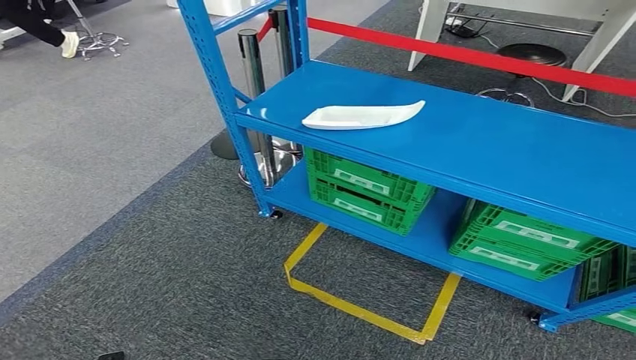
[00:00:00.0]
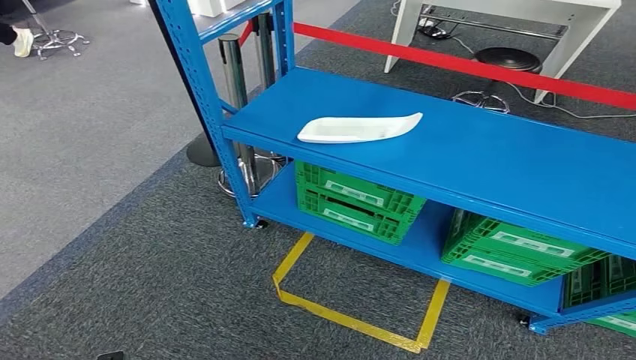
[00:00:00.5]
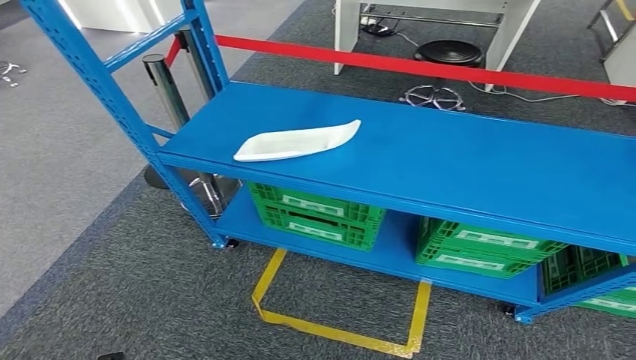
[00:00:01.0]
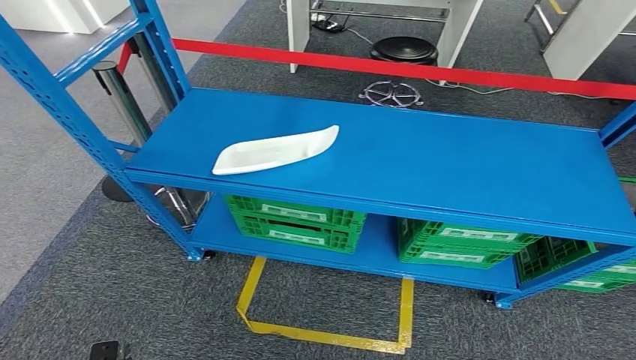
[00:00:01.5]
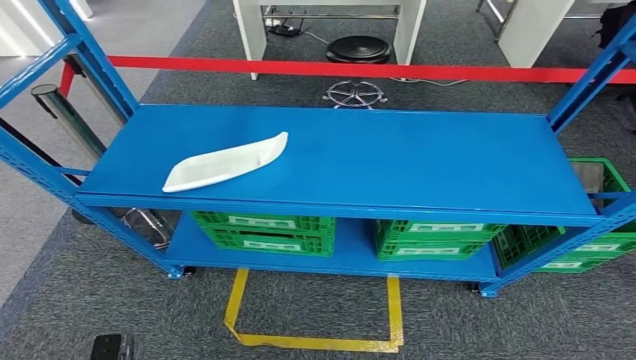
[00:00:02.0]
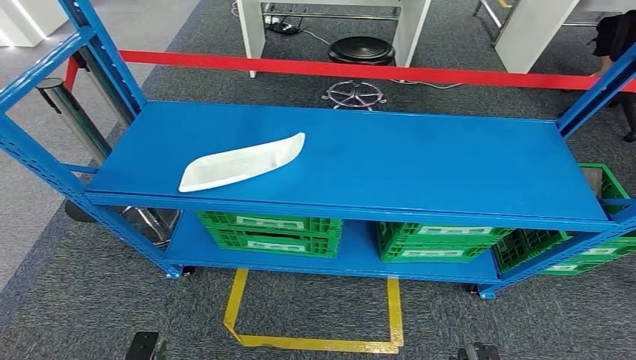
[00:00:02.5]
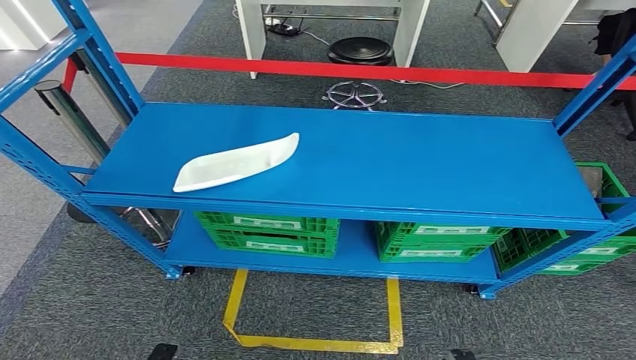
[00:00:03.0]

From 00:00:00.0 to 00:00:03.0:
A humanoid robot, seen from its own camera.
Step, from 00:00:00.0 to 00:00:03.0: Move to the initial position at the workbench.

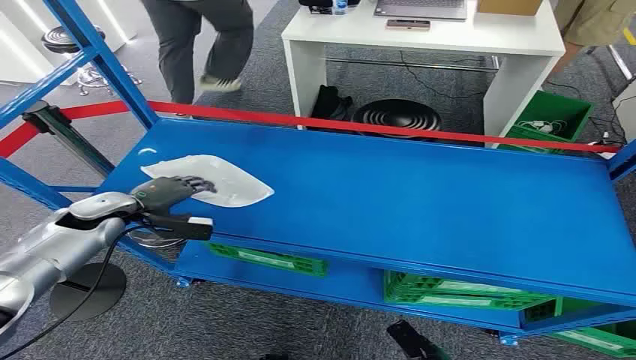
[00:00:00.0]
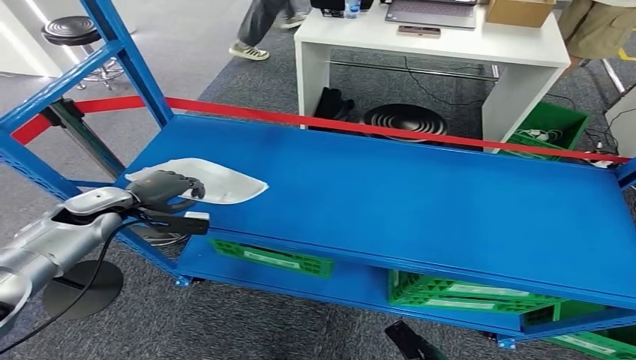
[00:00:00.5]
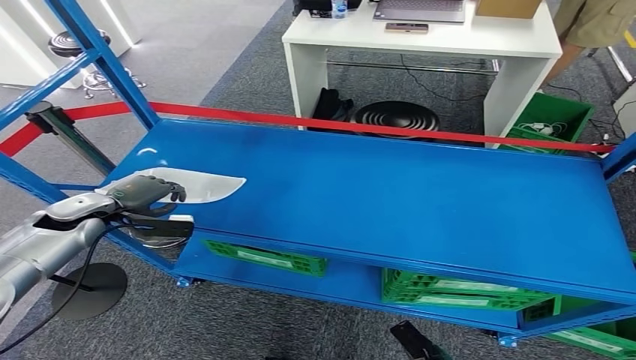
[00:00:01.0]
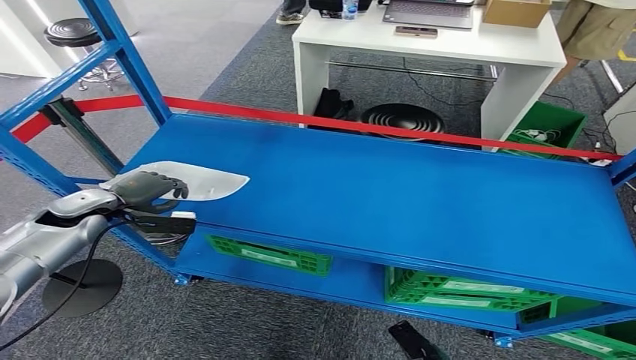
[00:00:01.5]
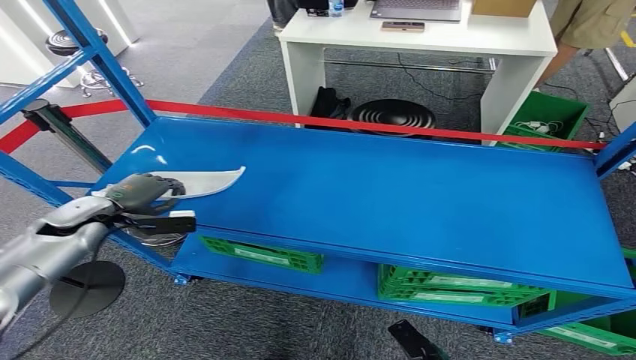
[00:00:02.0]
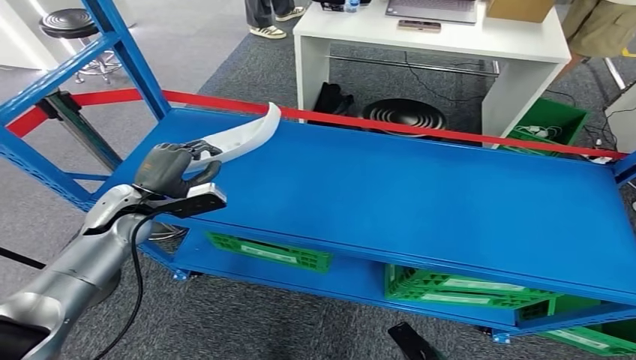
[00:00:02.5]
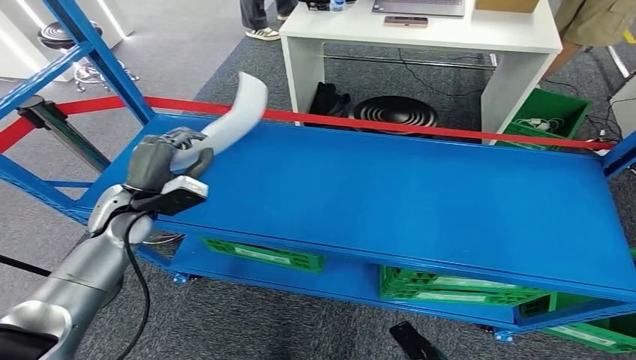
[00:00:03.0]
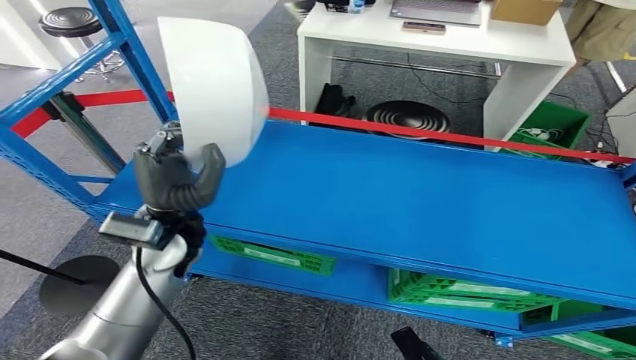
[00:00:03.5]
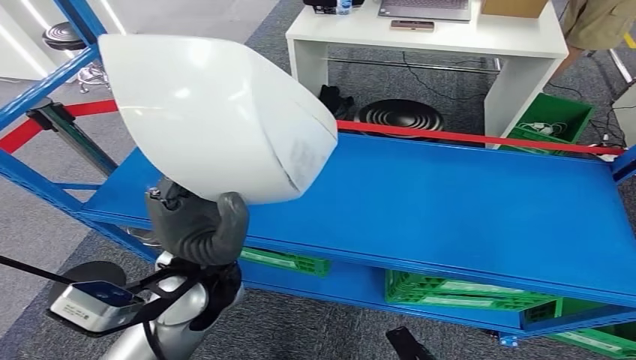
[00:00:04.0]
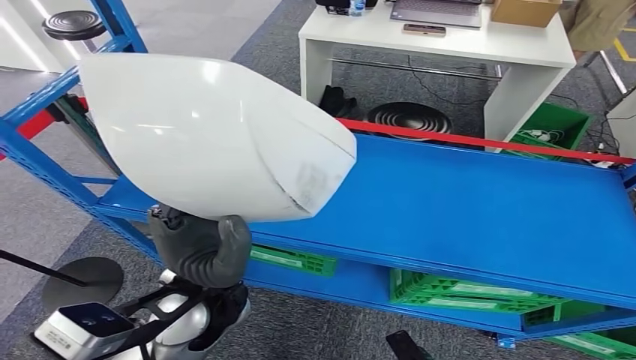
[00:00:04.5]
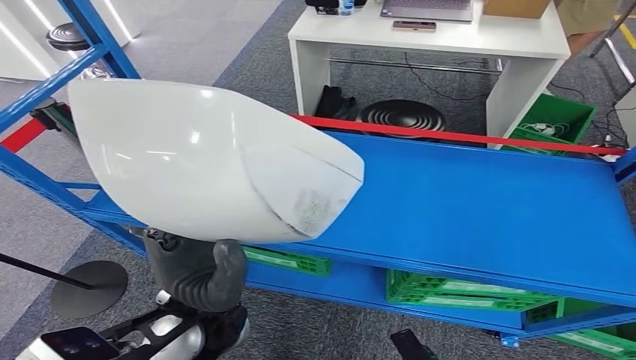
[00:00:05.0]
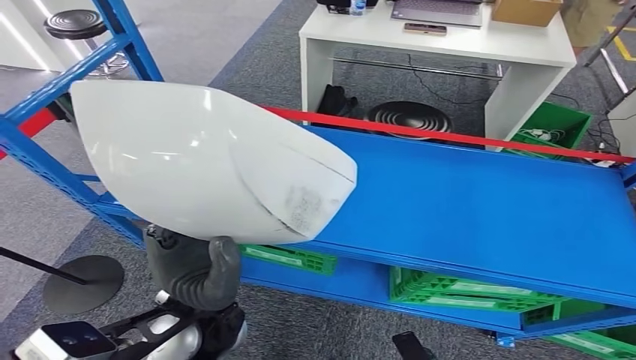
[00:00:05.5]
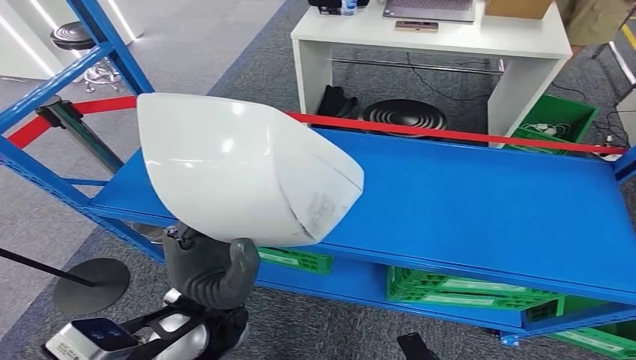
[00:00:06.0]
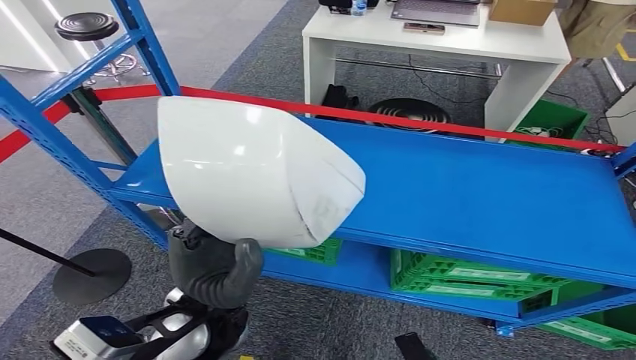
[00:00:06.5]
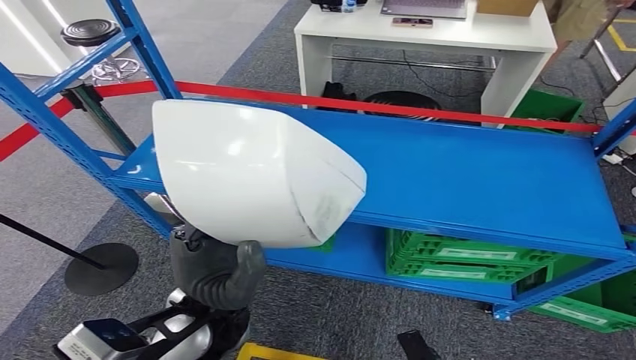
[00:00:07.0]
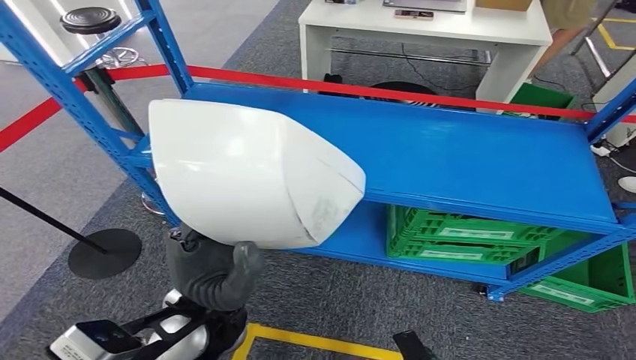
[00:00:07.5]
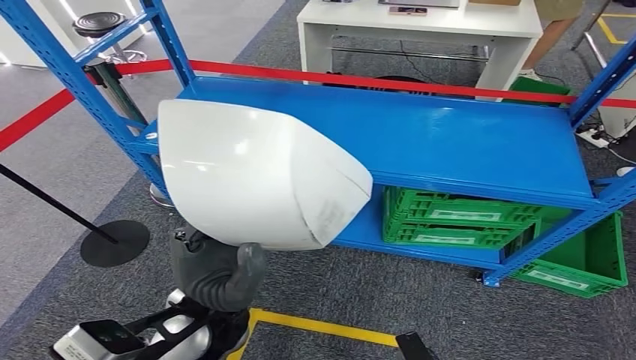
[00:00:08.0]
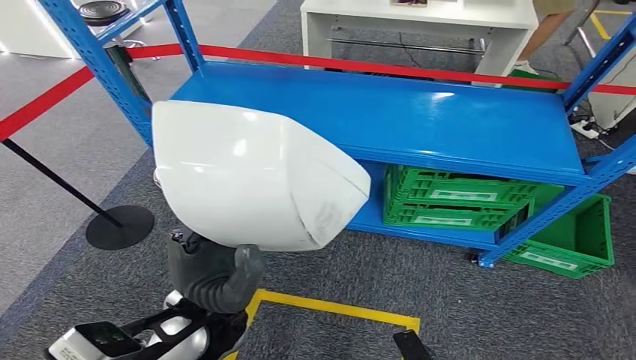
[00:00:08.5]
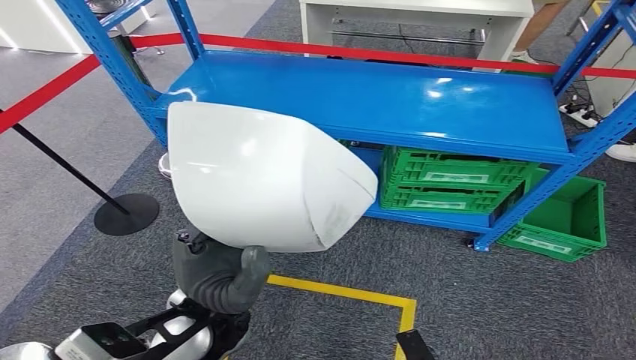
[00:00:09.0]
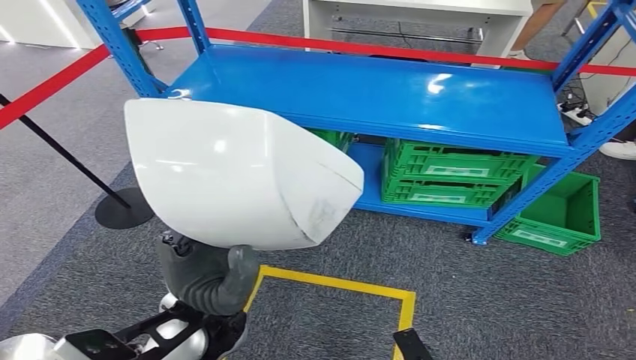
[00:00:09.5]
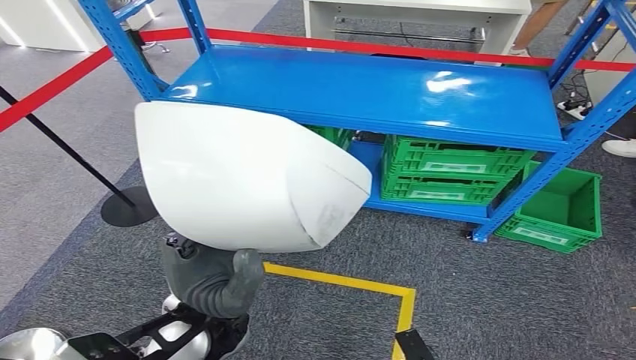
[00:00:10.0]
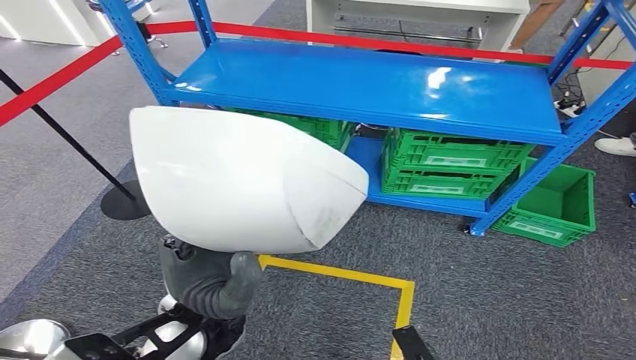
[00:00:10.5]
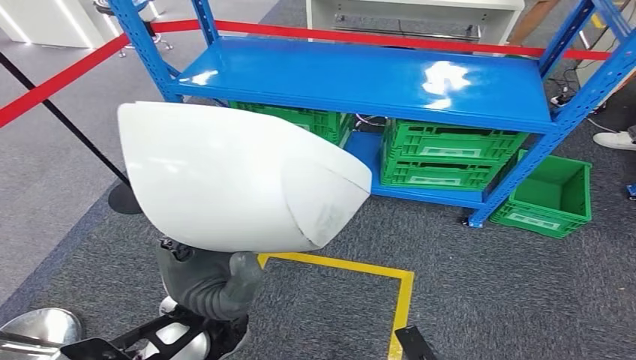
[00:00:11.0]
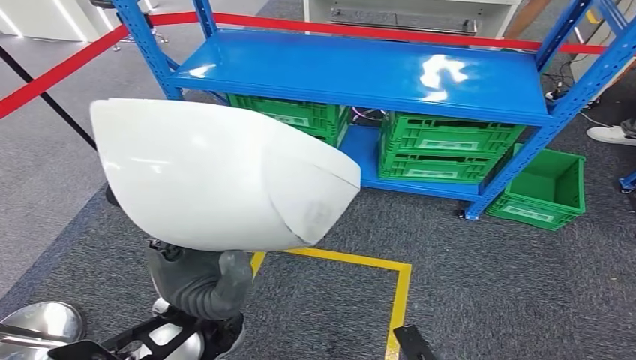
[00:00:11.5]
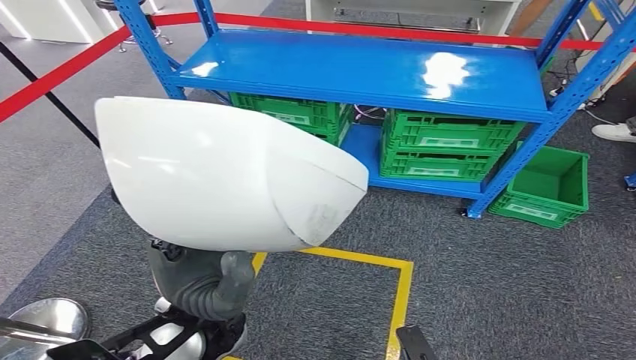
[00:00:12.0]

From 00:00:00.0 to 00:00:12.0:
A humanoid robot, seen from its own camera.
Step, from 00:00:00.0 to 00:00:06.0: Pick up the small parts from the shelf.

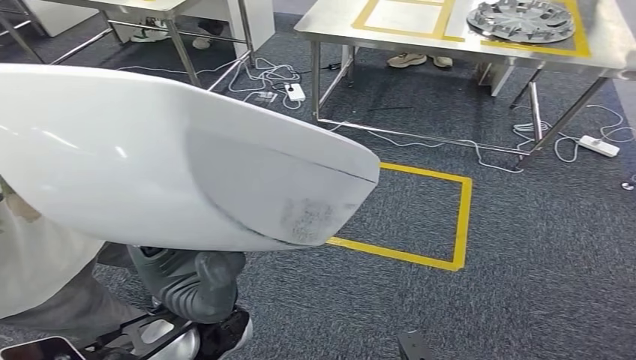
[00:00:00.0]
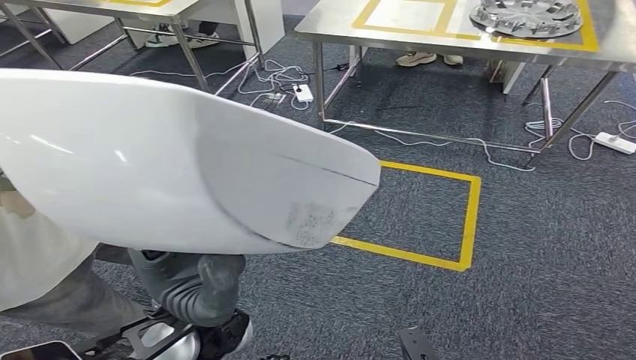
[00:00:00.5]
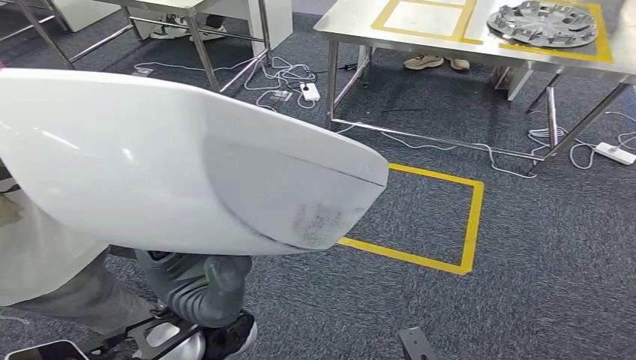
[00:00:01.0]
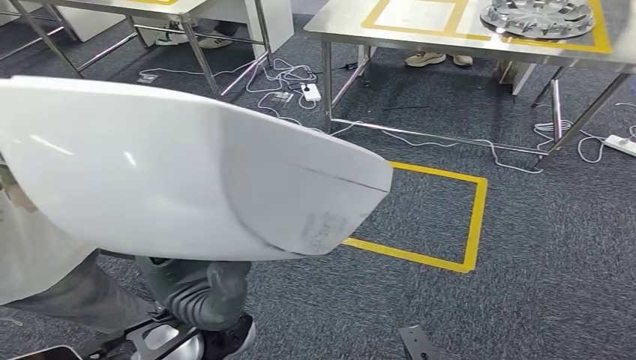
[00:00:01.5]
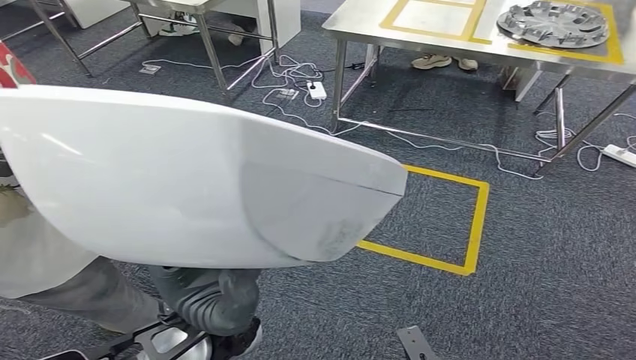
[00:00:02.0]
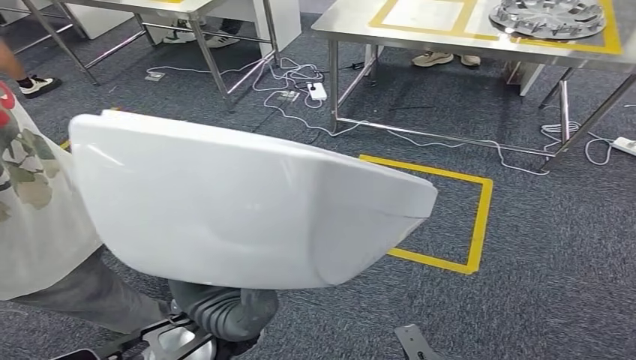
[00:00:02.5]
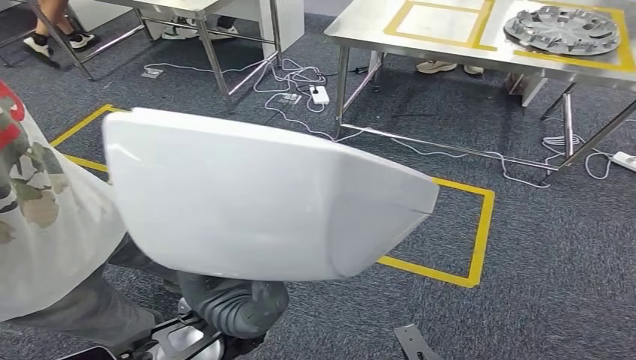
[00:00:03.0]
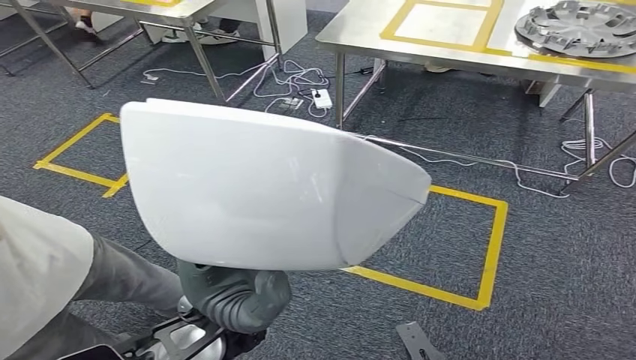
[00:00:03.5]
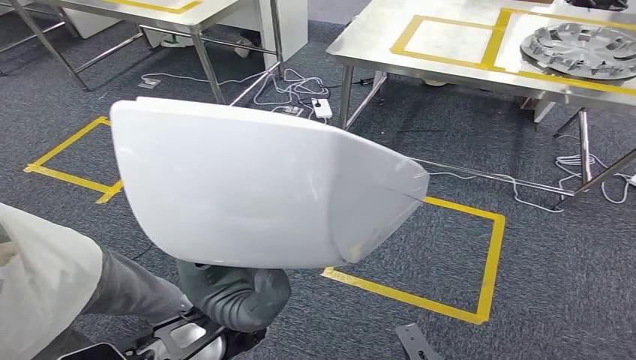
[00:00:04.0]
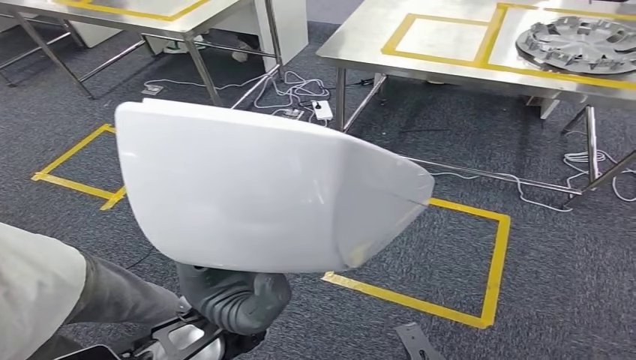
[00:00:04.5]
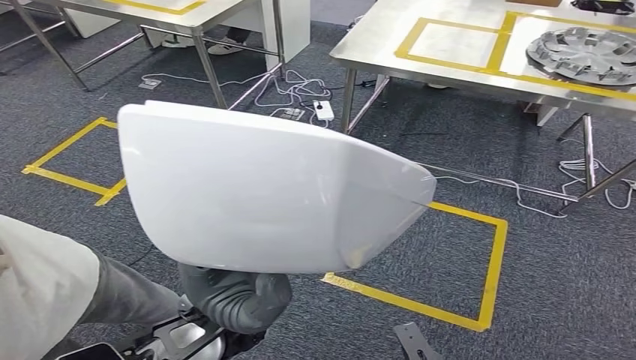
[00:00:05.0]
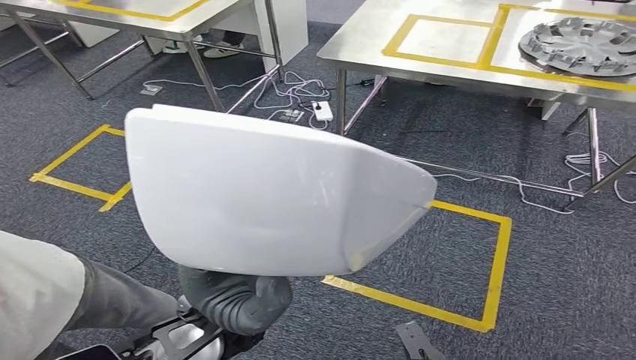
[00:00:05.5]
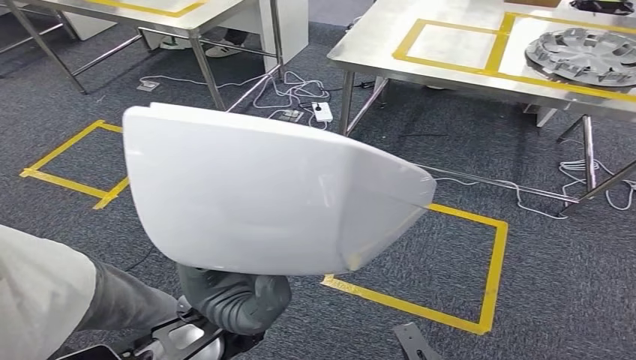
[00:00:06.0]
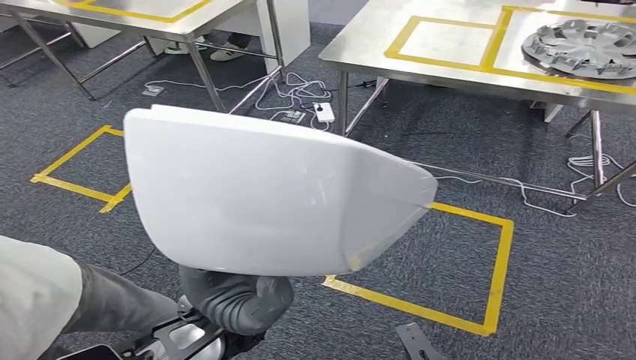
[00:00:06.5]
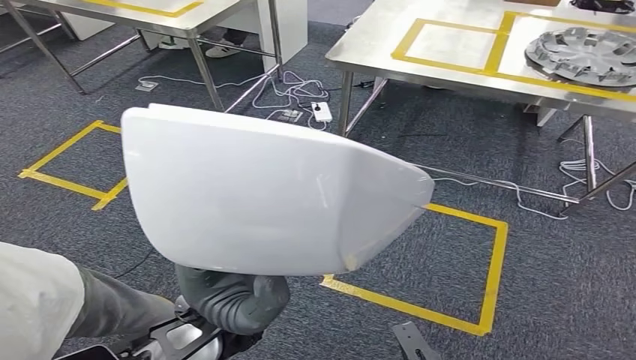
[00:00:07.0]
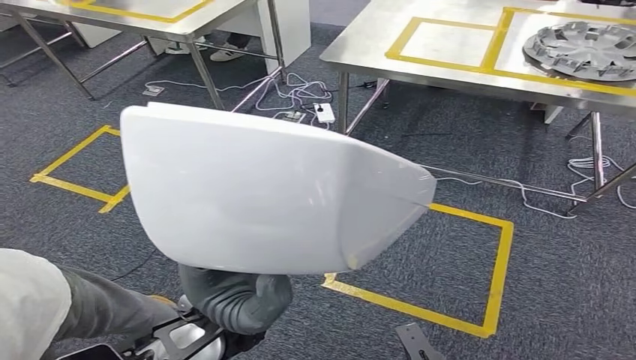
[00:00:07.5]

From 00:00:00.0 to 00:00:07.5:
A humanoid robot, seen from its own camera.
From 00:00:05.5 to 00:00:07.5: Neither hand changes place.
